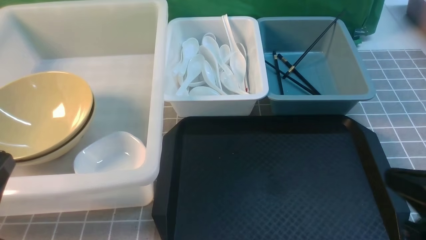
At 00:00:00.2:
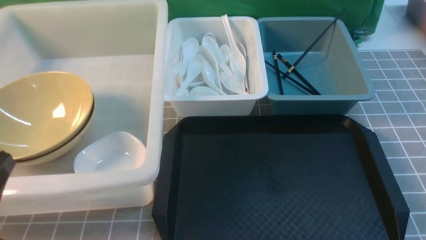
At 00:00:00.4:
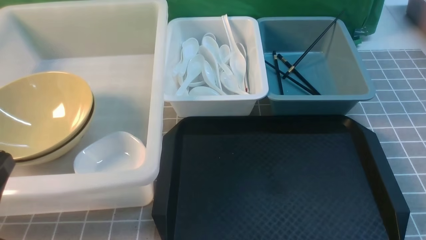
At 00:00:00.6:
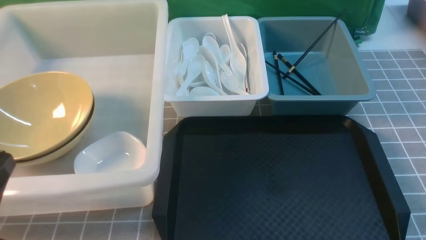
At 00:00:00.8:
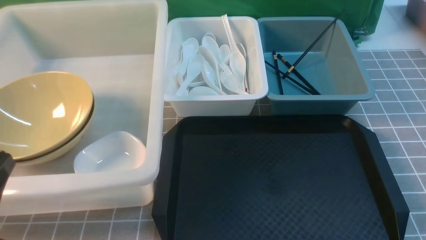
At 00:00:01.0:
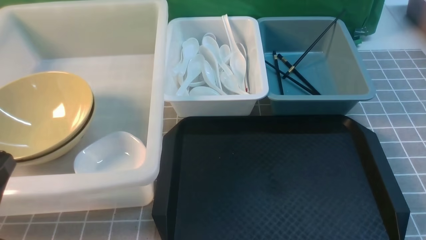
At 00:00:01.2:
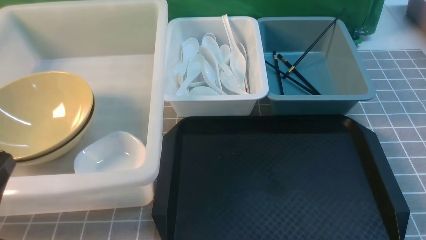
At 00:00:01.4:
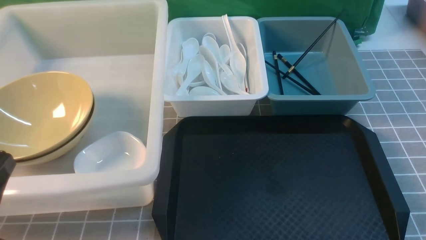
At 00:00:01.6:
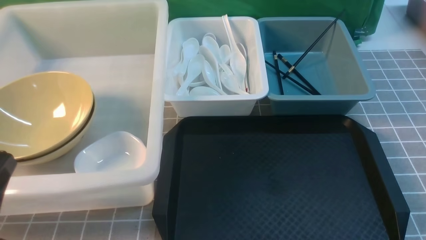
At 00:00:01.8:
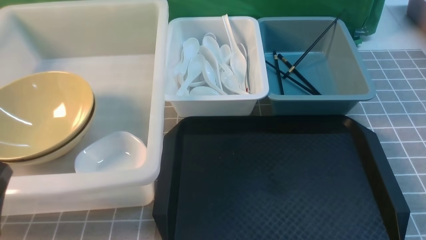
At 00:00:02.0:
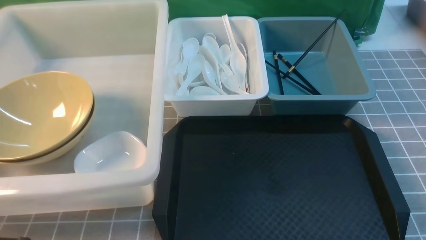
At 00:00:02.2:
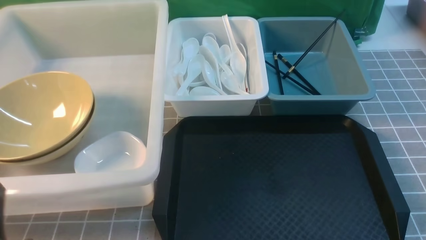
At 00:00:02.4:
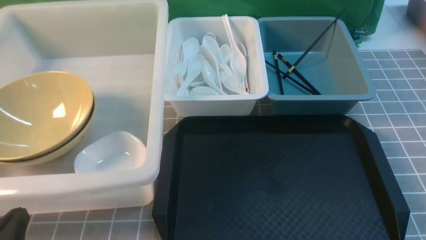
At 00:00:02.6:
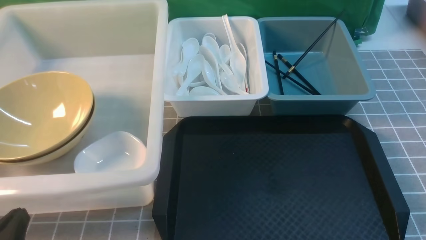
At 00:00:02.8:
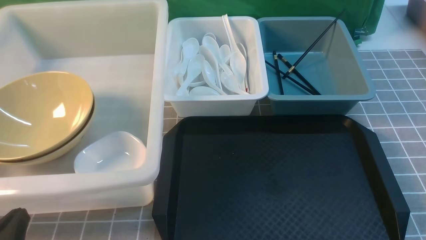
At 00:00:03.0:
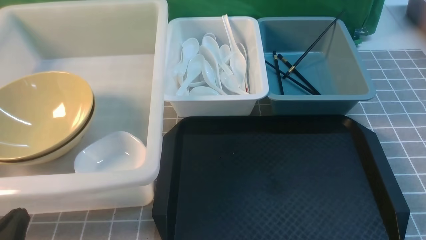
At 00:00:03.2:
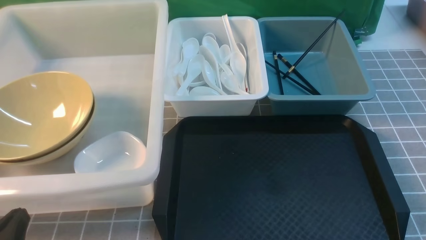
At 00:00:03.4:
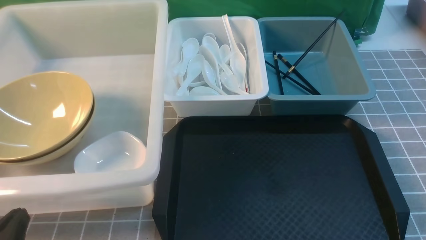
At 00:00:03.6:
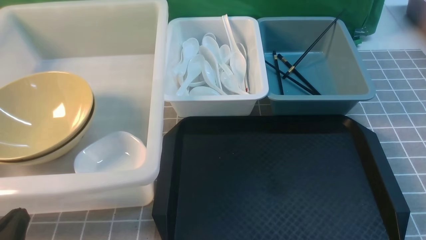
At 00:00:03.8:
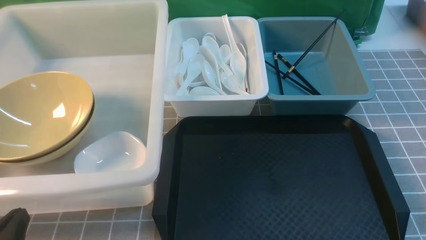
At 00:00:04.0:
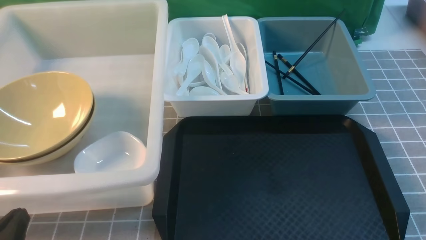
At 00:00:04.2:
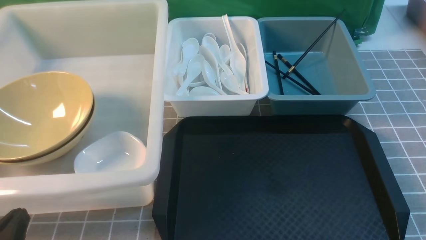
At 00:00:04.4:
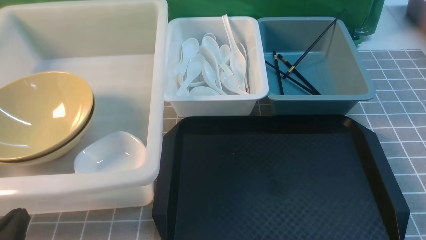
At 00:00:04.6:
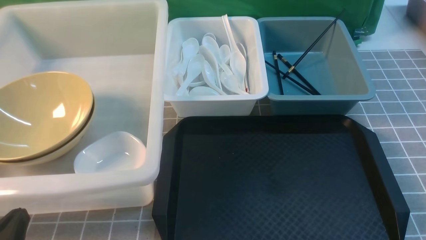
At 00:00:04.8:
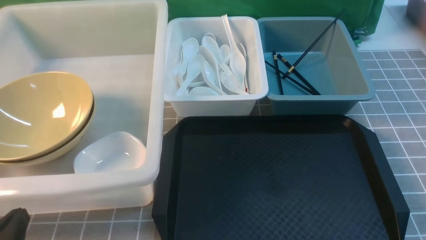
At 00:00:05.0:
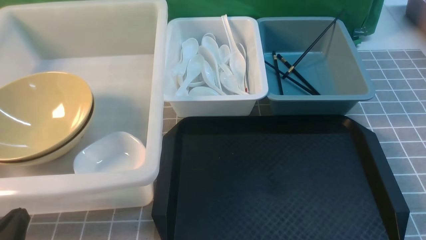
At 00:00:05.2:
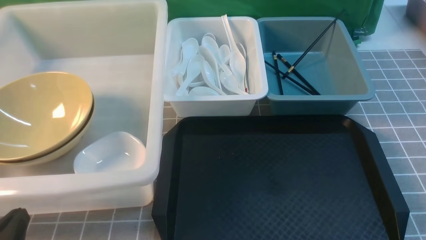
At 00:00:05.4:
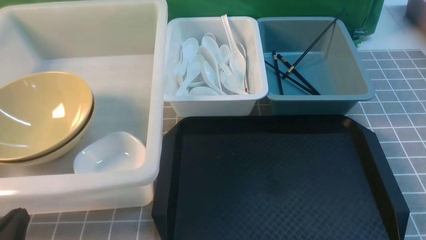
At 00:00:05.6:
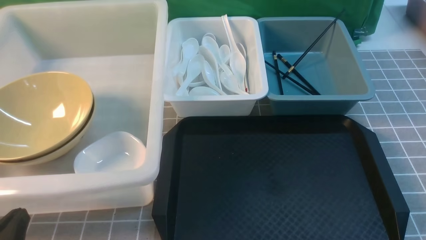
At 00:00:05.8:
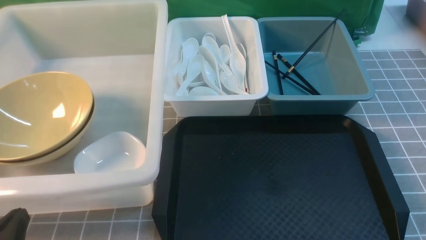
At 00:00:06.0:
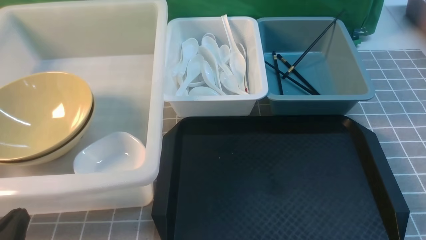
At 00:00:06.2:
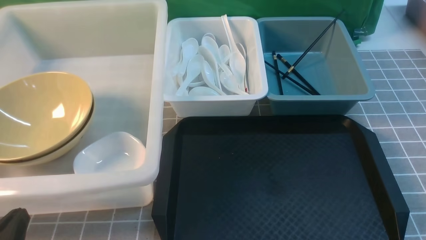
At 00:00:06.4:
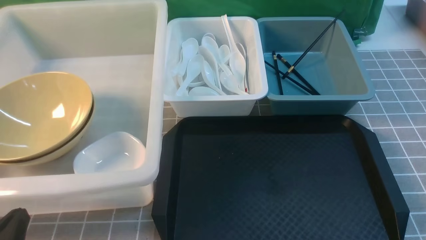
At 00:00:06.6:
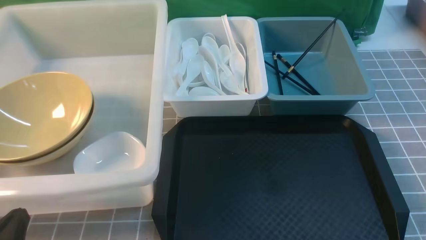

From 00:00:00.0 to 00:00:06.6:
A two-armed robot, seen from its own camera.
Task of the whole recording: on grey table put chopsticks spoon bowls plates into blue grey white boxes.
From 00:00:00.0 to 00:00:01.6: The right gripper heads downward, backward and to the right, covering about 10 cm.
From 00:00:01.6 to 00:00:03.2: The left gripper goes approximately 10 cm downward.
From 00:00:03.2 to 00:00:06.6: The two grippers keep their place.
